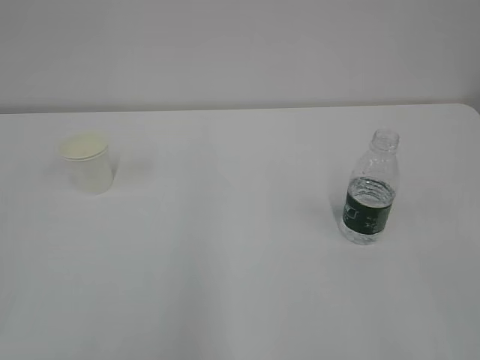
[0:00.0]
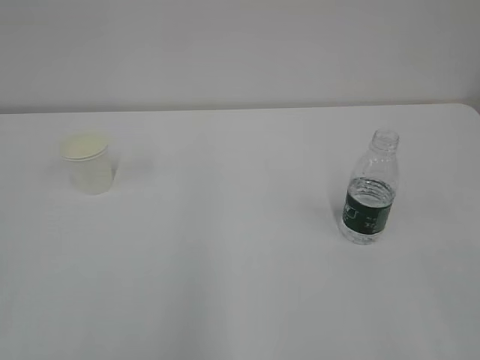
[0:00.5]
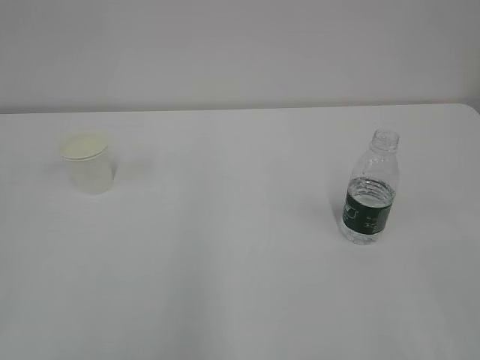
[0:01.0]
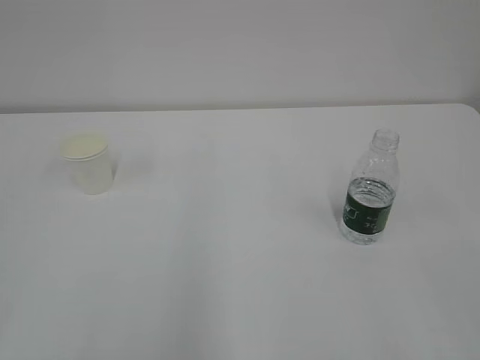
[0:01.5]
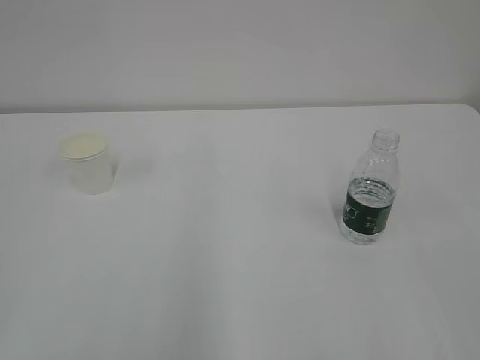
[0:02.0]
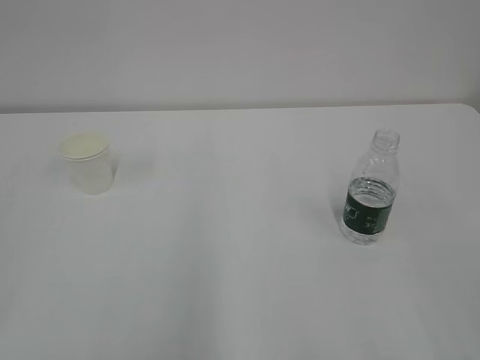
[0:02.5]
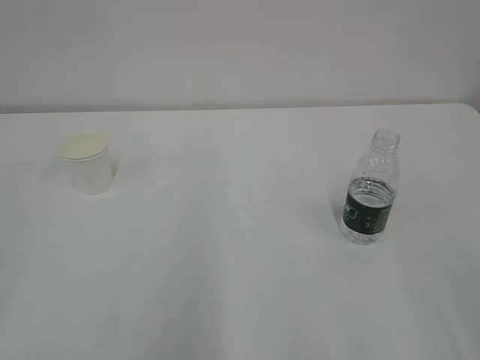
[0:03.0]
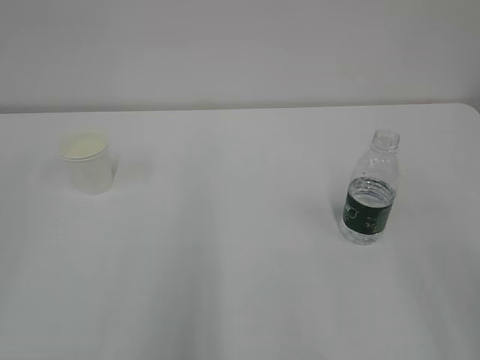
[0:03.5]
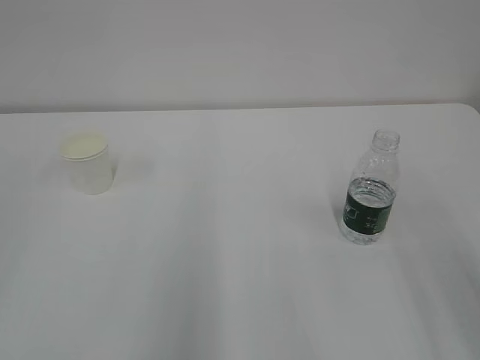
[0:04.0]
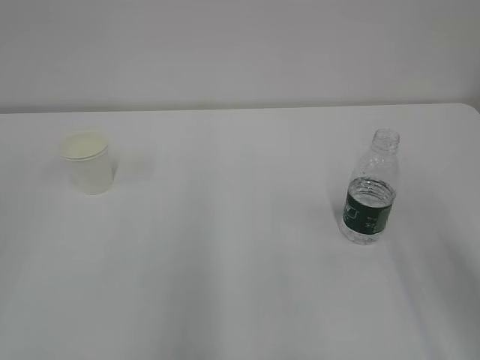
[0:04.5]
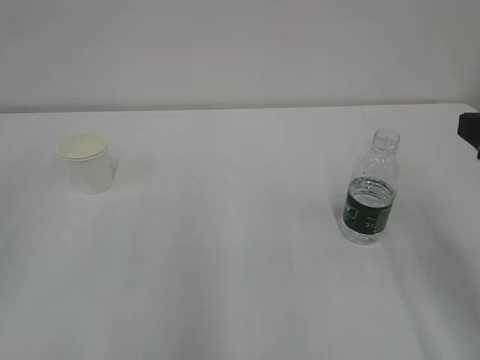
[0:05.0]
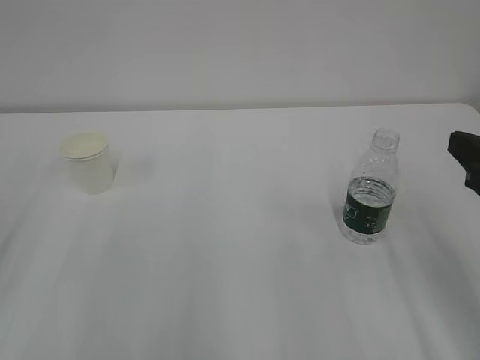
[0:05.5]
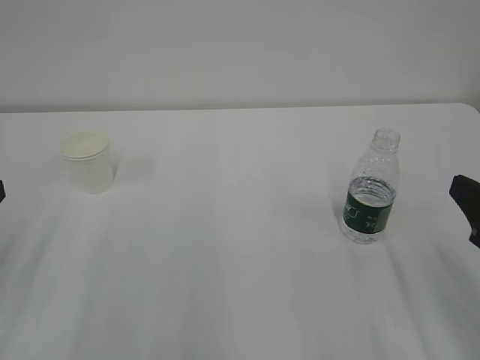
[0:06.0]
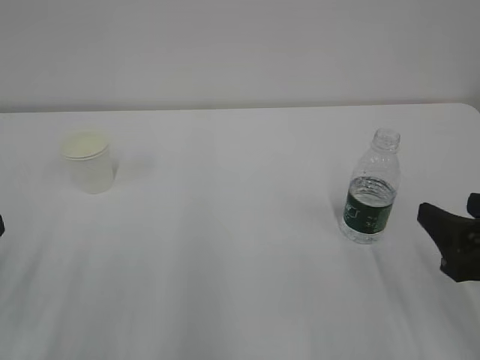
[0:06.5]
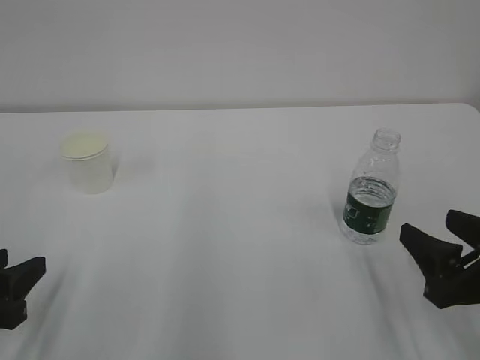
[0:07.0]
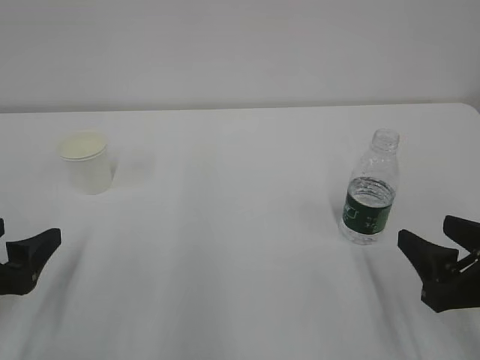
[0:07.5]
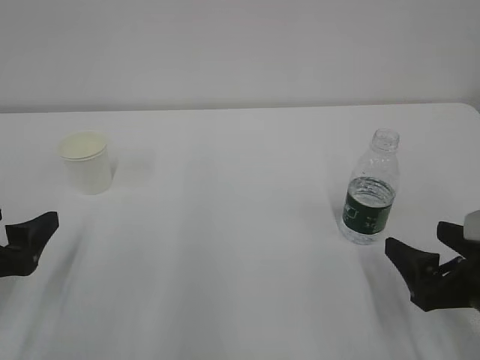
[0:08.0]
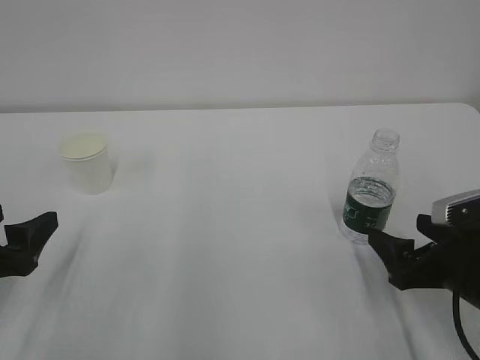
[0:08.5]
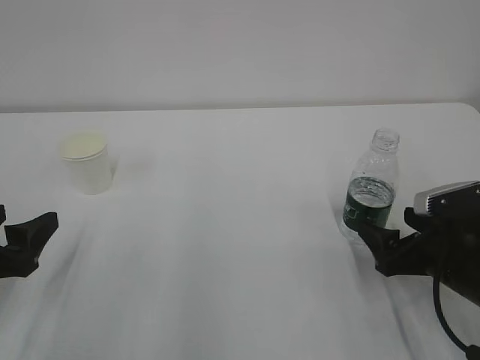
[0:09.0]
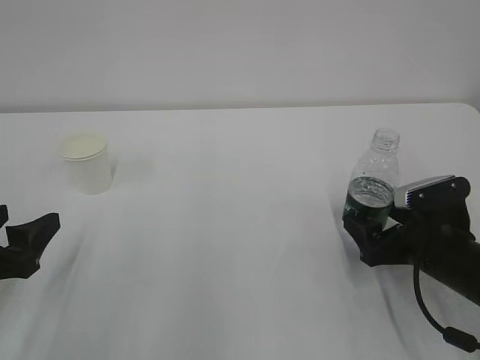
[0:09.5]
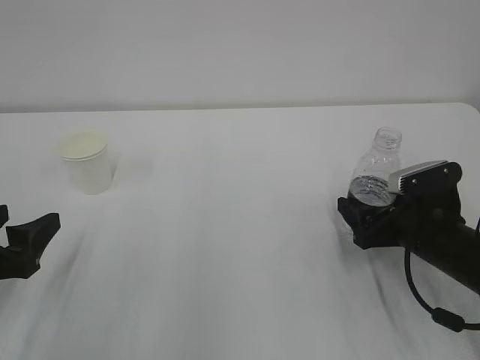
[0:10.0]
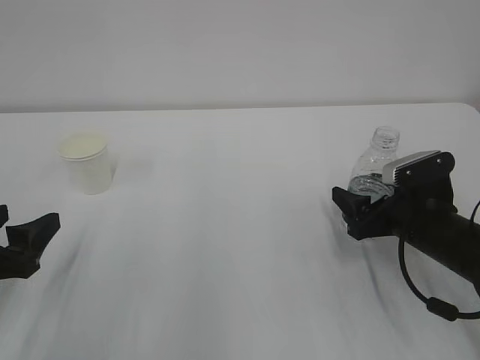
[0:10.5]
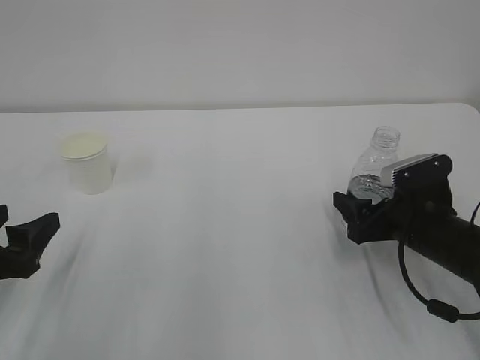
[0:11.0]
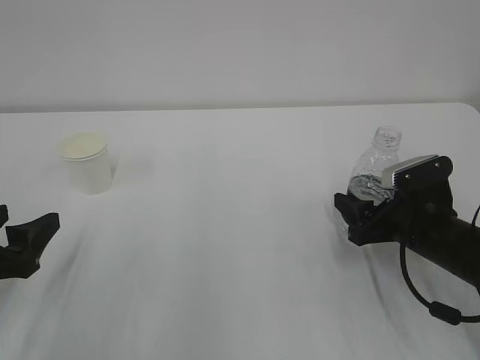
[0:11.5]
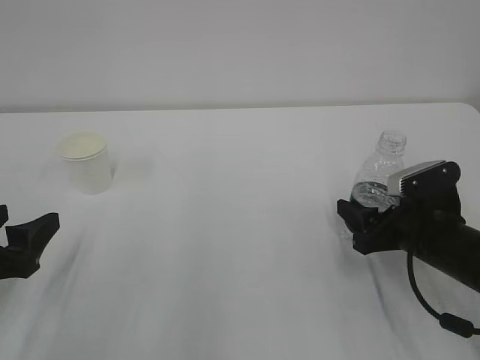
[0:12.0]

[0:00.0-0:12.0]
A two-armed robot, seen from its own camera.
0:04.0 to 0:06.0: The right gripper is displaced downward and forward by about 10 cm.
0:06.0 to 0:08.0: Both grippers travel together downward, about 5 cm. The left gripper opens up; the right gripper opens its fingers.
0:08.0 to 0:10.0: The right gripper moves forward, roughly 10 cm.
0:10.0 to 0:12.0: The right gripper closes its fingers.

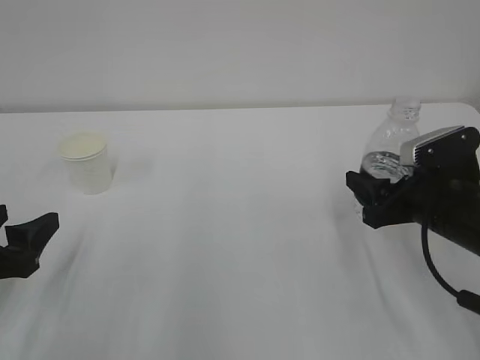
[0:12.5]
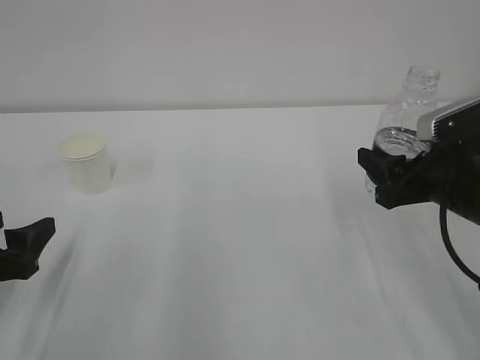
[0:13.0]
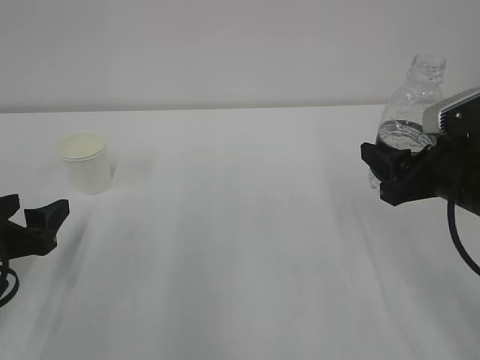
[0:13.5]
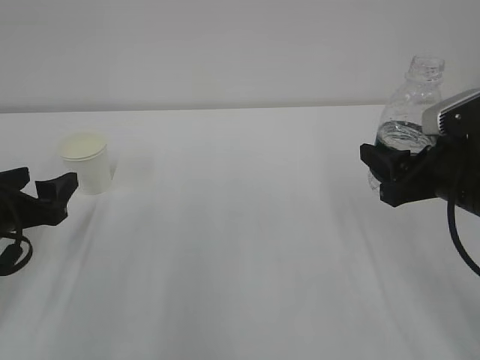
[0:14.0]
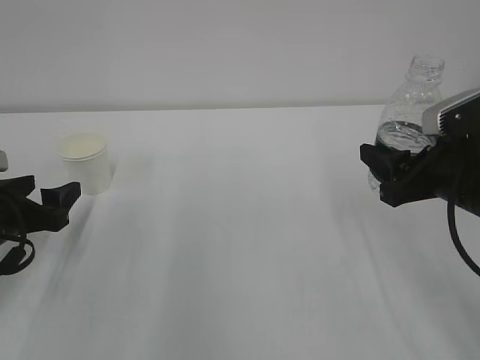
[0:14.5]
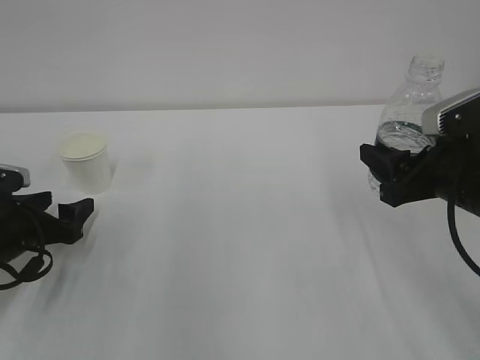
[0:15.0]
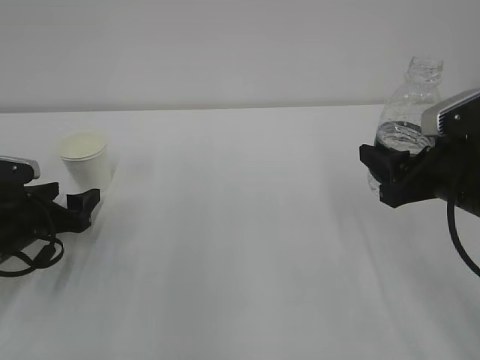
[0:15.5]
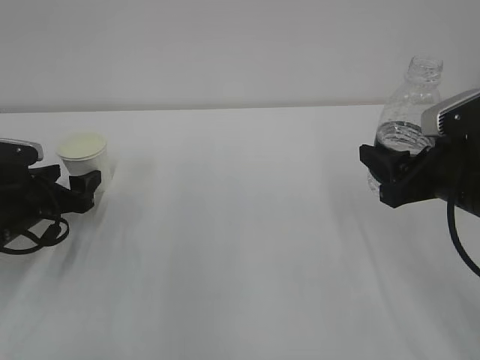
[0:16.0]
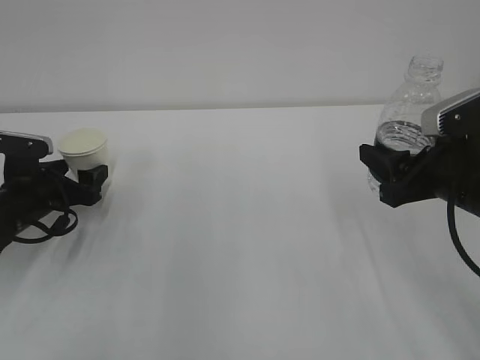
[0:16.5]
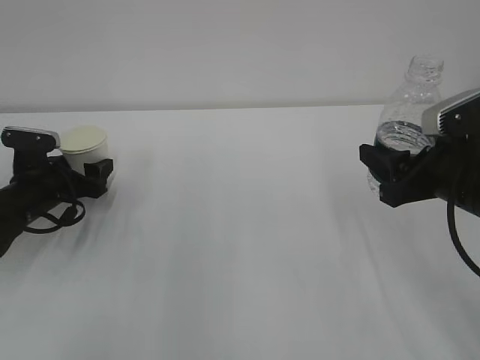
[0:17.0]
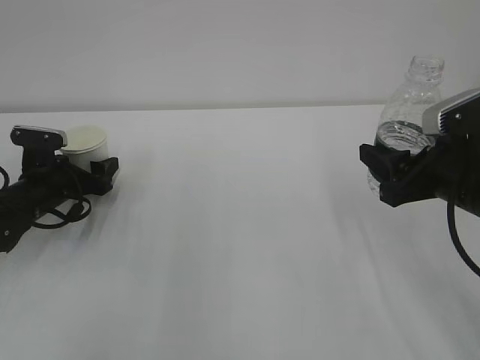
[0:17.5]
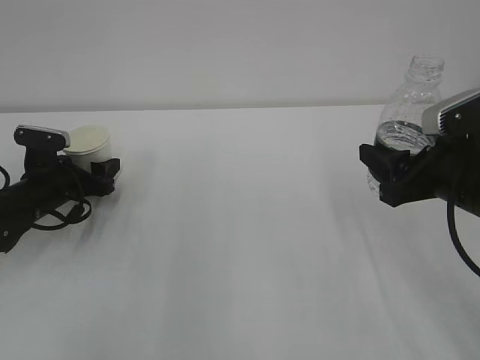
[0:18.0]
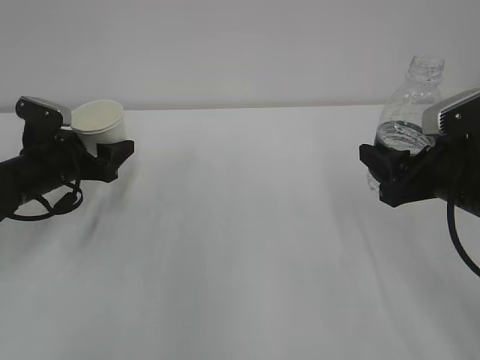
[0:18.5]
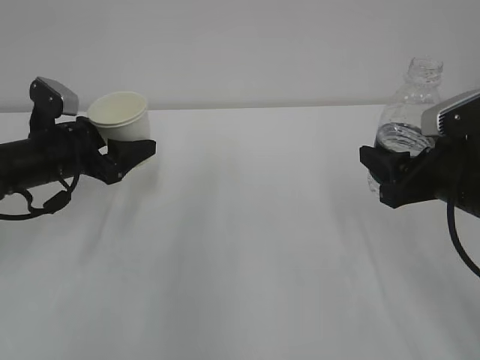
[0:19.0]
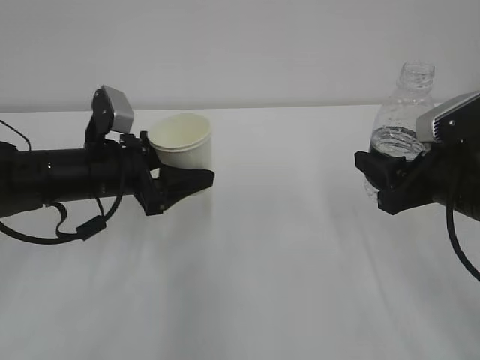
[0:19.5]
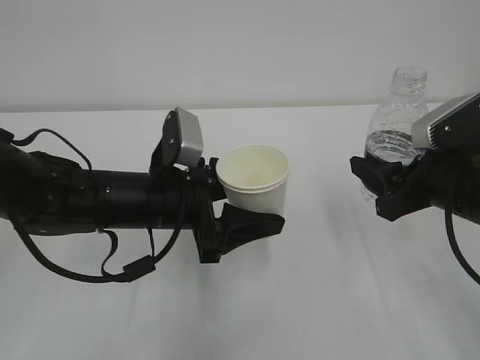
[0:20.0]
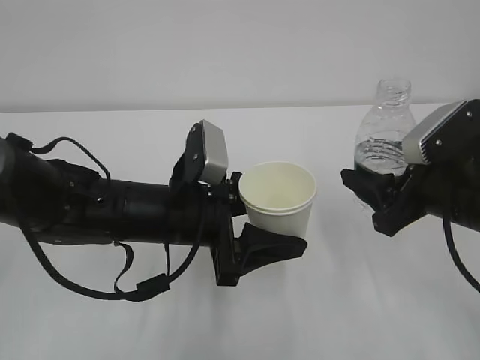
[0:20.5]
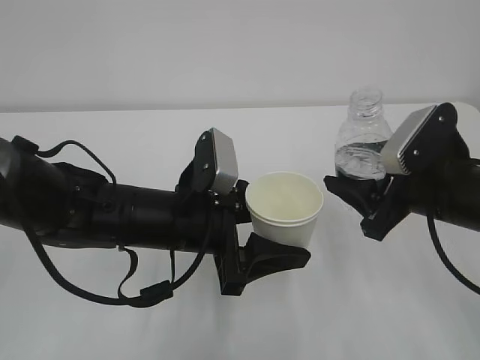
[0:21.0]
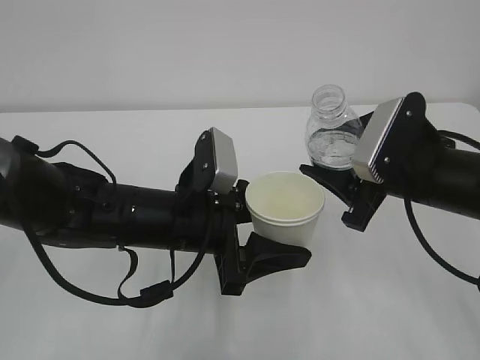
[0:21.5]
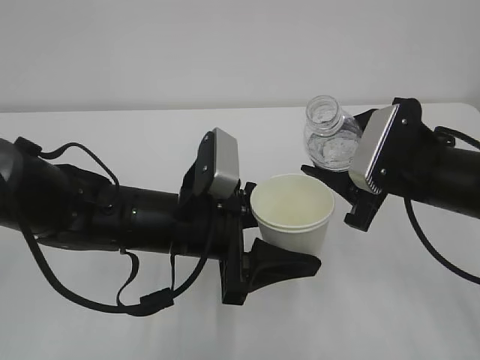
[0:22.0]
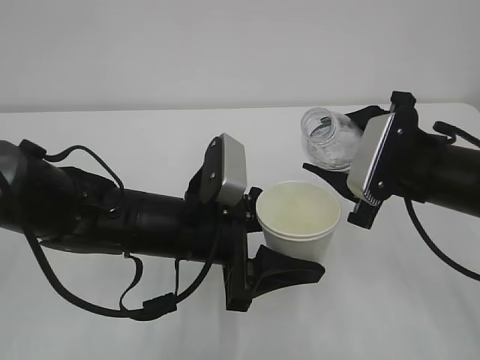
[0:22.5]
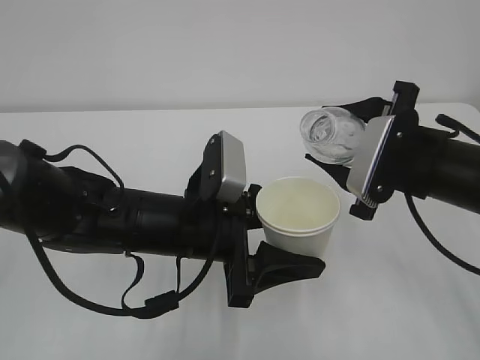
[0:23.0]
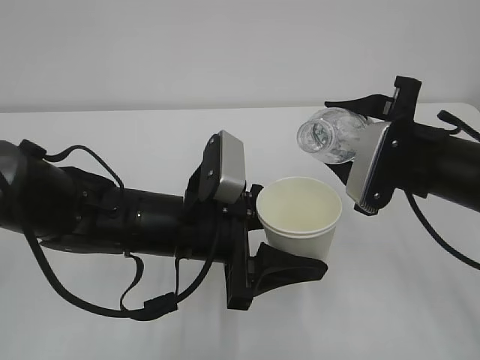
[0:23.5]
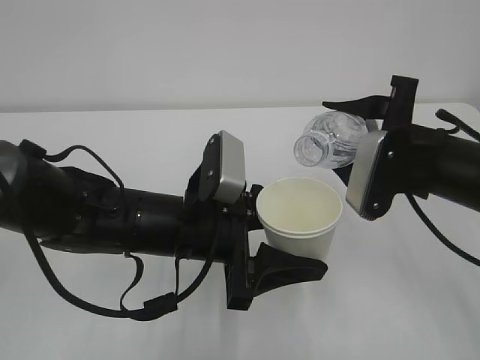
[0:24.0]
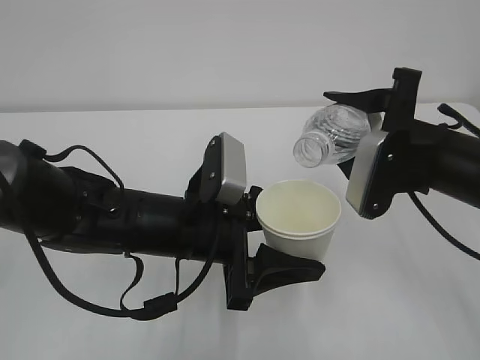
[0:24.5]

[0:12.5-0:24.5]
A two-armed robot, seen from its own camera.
0:12.5 to 0:14.5: The right gripper shifts some 5 cm upward; the left gripper heads forward, covering some 10 cm.
0:14.5 to 0:16.5: The left gripper goes some 10 cm forward.
0:16.5 to 0:18.5: The grippers move only a little.
0:18.5 to 0:20.5: The left gripper travels to the right and backward by roughly 20 cm.

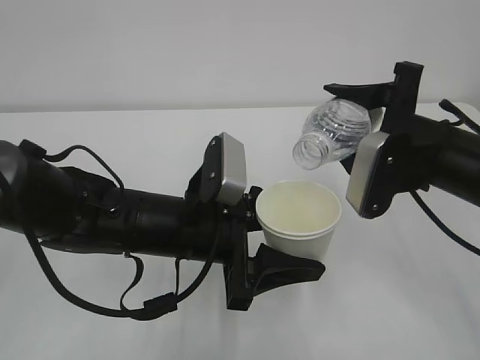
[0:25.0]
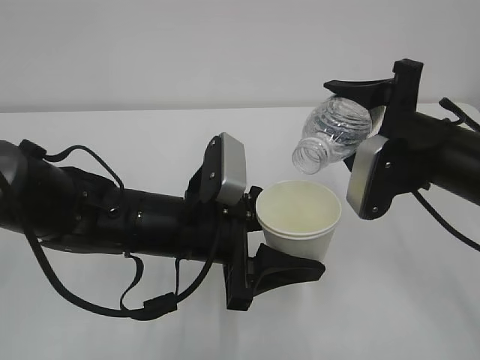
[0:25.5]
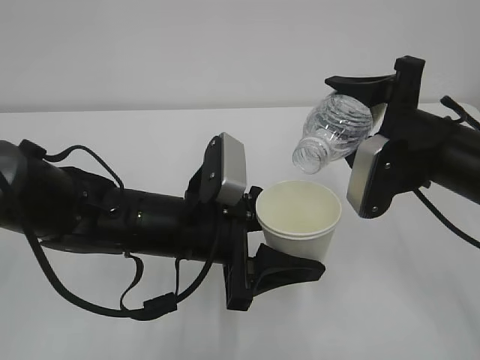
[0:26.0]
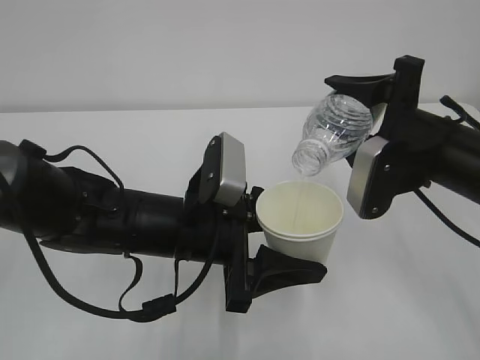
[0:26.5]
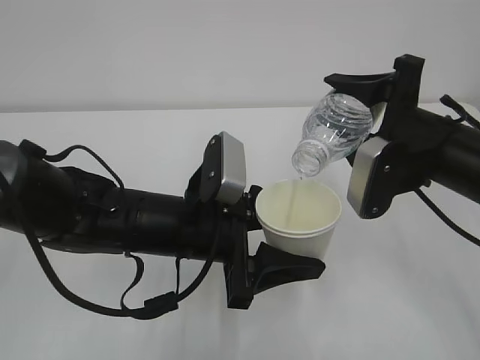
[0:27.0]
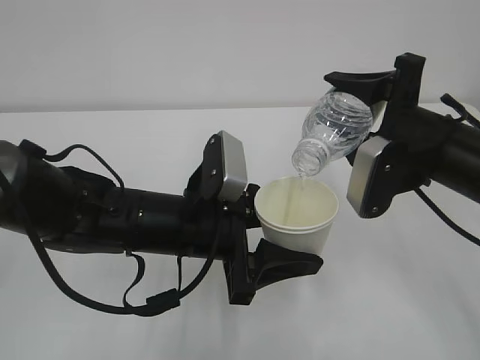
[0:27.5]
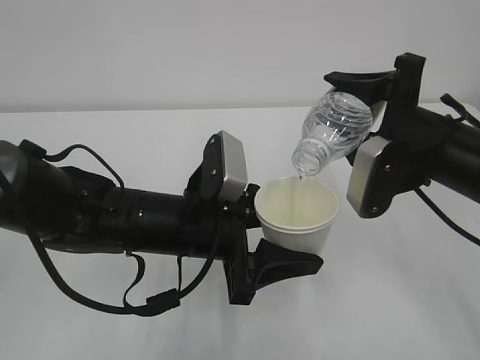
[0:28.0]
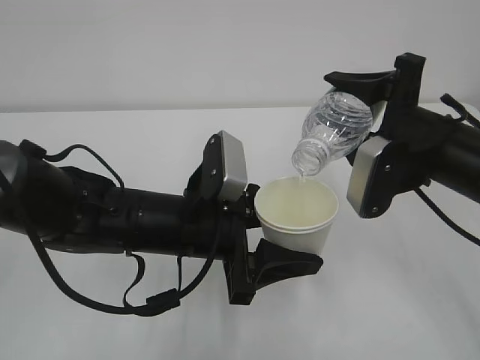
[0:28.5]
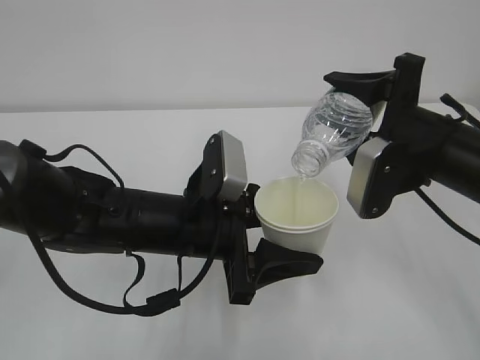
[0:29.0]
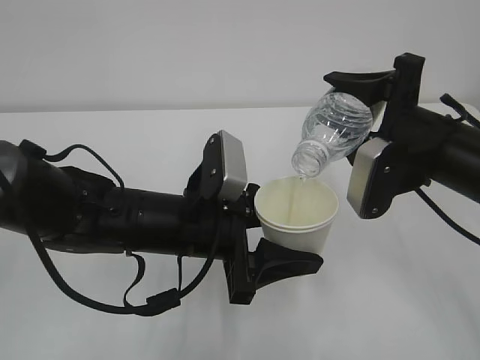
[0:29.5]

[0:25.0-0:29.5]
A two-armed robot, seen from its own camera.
0:25.0 to 0:27.0: The grippers make only small movements.
0:27.0 to 0:29.5: Both grippers stay about where they are.
